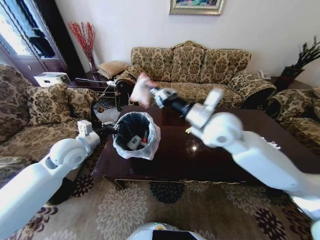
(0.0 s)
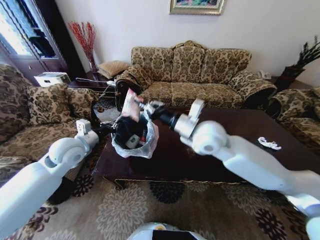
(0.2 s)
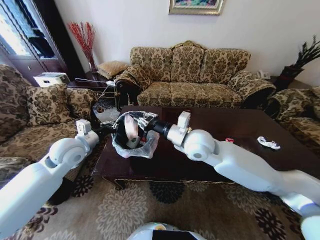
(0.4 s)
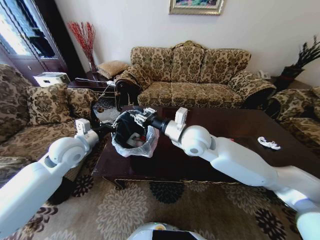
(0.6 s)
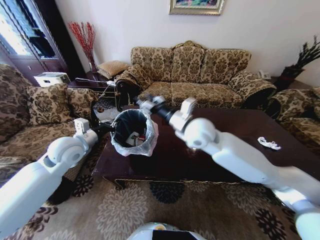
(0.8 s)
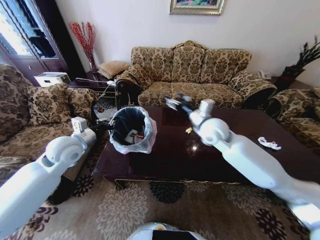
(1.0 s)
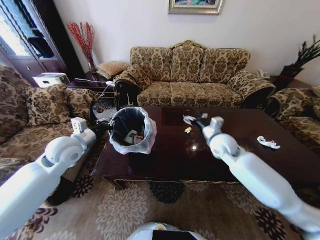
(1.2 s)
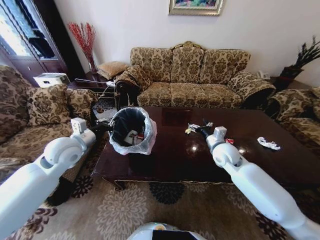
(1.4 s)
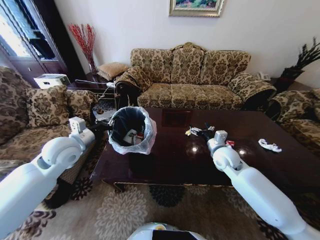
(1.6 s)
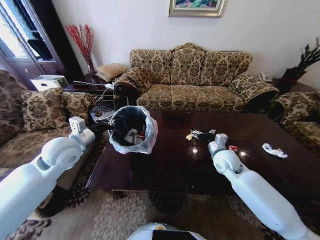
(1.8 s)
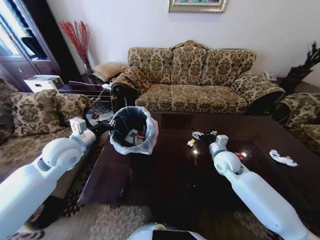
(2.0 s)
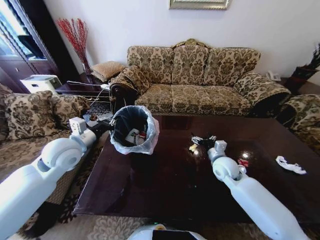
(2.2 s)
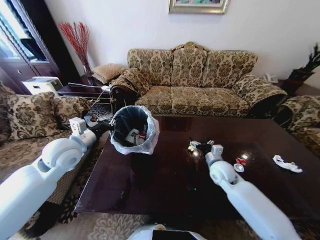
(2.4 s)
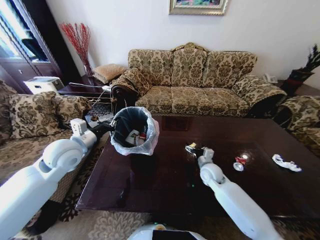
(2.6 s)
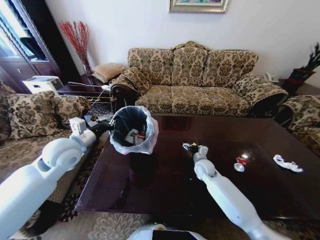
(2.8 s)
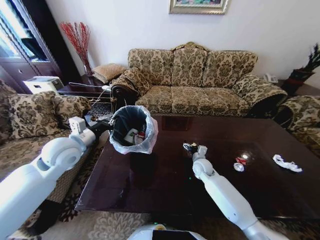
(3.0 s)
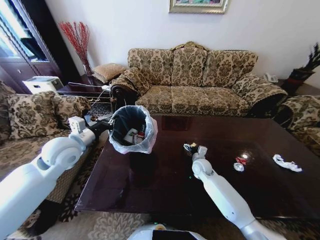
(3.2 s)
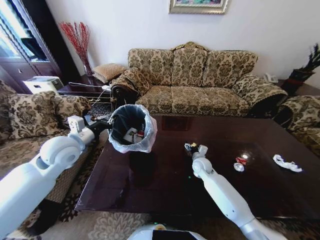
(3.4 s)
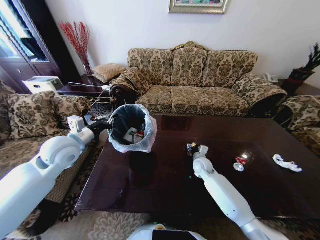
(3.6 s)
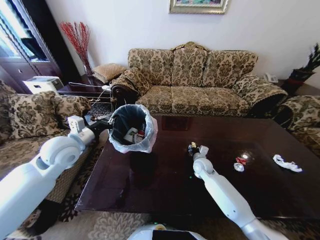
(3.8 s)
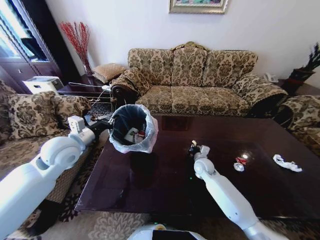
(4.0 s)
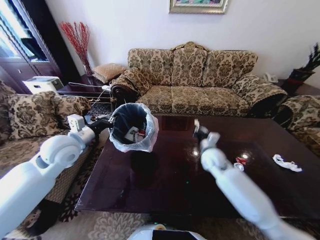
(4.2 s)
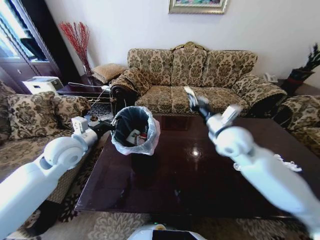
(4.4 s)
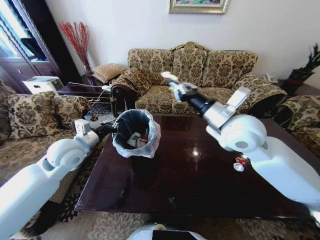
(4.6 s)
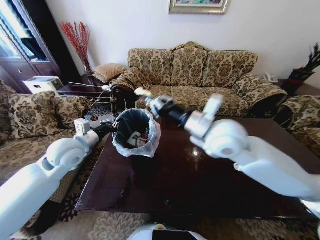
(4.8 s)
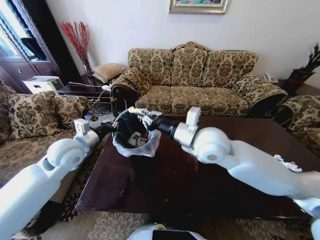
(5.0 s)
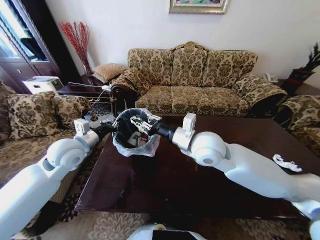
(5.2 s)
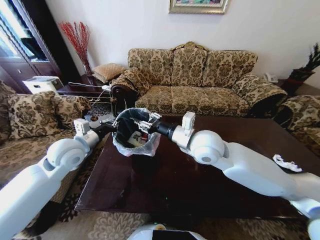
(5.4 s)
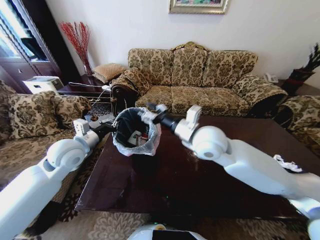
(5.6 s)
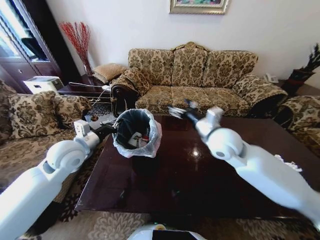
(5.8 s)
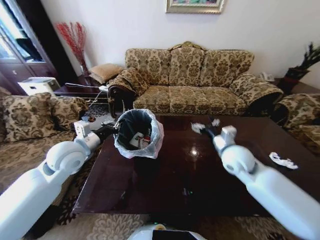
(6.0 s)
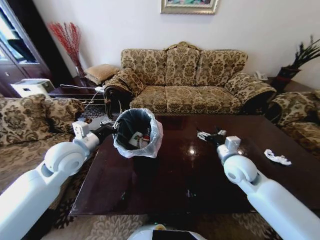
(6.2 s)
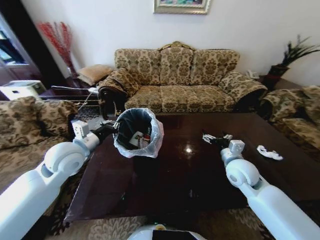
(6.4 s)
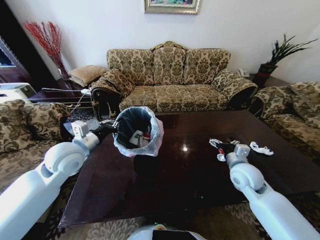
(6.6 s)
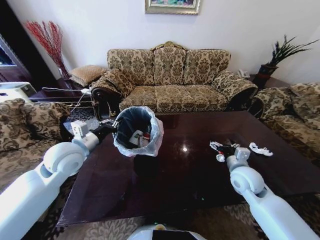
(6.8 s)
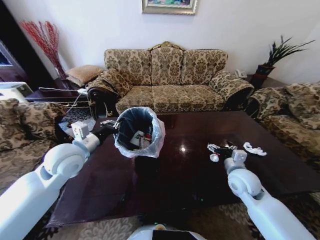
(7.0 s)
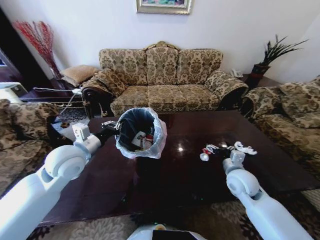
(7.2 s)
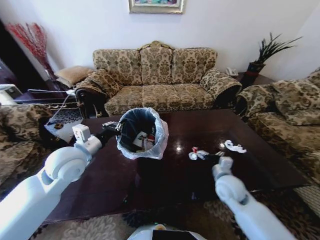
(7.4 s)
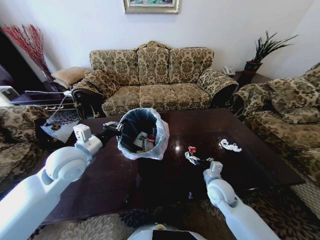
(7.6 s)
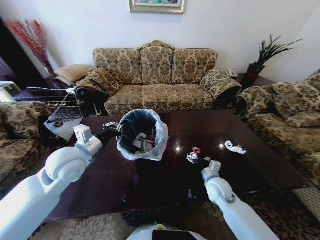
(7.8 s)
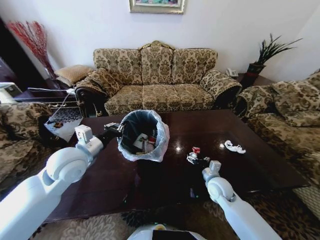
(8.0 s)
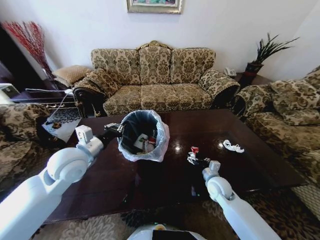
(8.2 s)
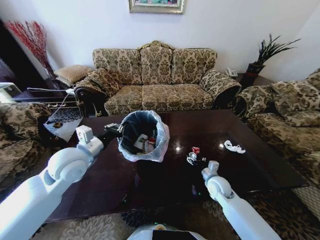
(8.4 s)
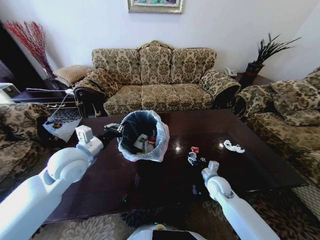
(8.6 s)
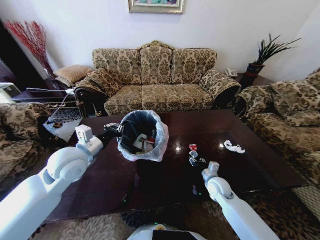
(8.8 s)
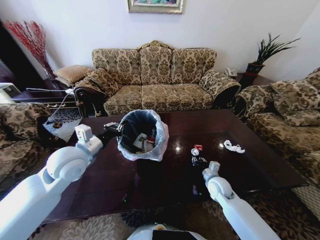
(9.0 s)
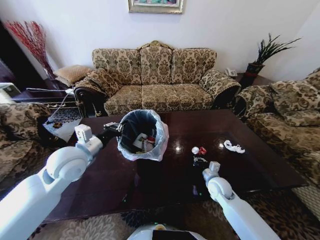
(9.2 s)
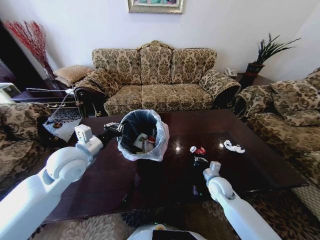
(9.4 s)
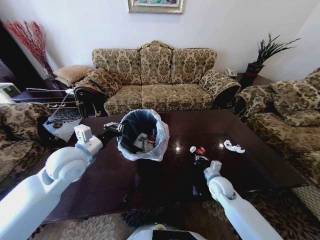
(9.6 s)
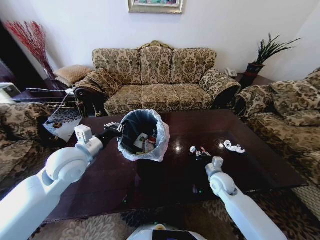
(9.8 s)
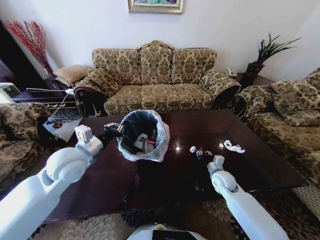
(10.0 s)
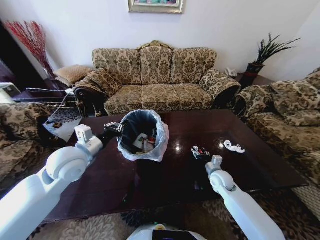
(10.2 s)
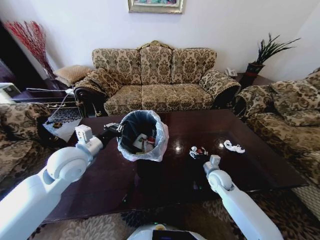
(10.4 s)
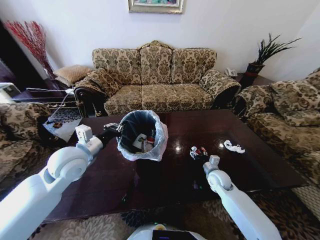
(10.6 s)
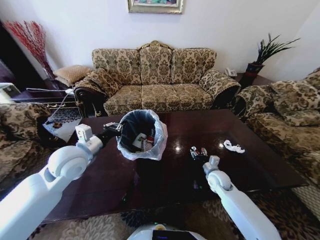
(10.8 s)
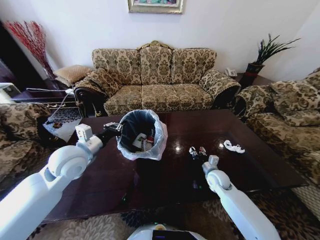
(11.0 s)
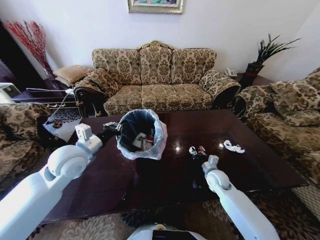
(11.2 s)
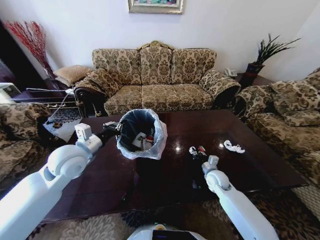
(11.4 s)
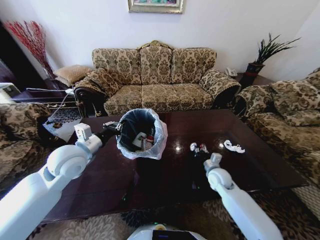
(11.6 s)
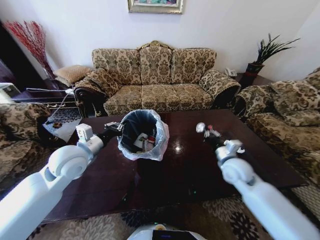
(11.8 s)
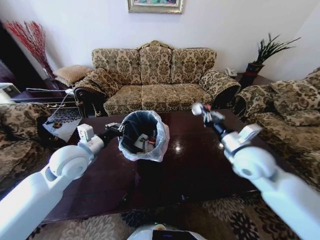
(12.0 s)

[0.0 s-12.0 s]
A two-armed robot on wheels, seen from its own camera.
Task of the whole recording: Move to the front of the table and place the trash on the table into the trash bin.
0.0 to 1.6 s: The right gripper shifts roughly 20 cm downward and to the right, and opens up.
1.6 to 3.0 s: The right gripper shifts some 15 cm downward and to the left.
3.0 to 4.4 s: The right gripper moves upward, approximately 25 cm, and closes.
4.4 to 6.0 s: The right gripper shifts roughly 5 cm downward, and opens.
6.0 to 7.6 s: The right gripper goes some 15 cm downward and backward.
7.6 to 9.0 s: The right gripper goes about 5 cm downward, and closes.
9.0 to 10.4 s: The right gripper opens.
10.4 to 12.0 s: The right gripper moves upward, some 25 cm, and closes its fingers.

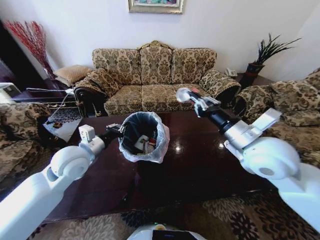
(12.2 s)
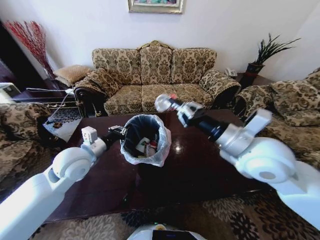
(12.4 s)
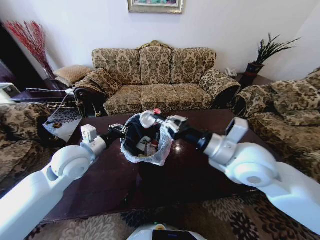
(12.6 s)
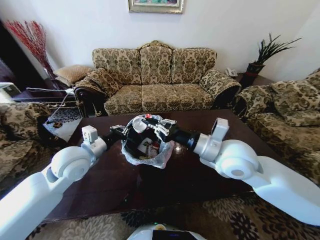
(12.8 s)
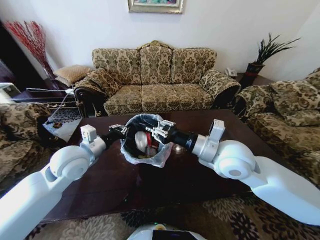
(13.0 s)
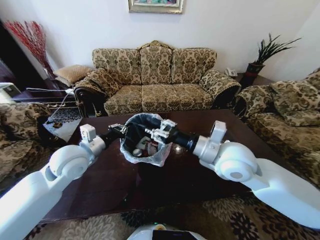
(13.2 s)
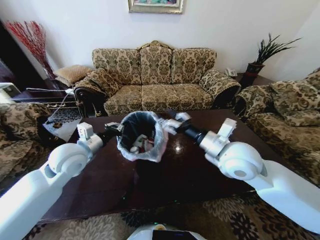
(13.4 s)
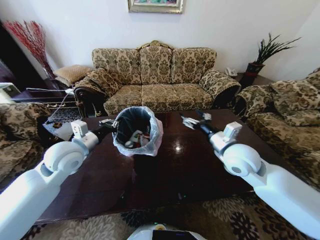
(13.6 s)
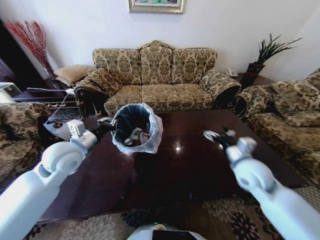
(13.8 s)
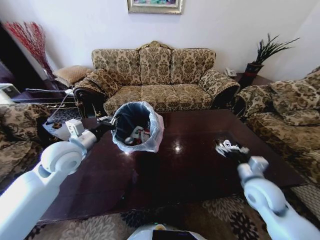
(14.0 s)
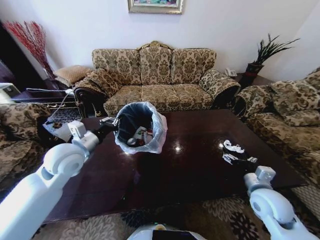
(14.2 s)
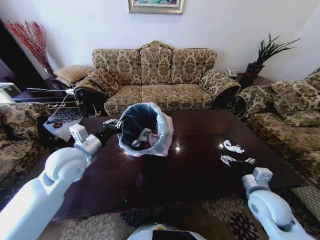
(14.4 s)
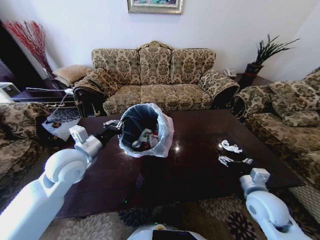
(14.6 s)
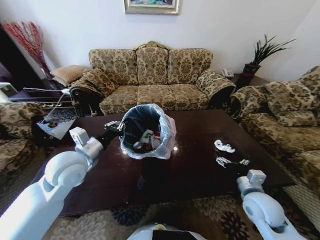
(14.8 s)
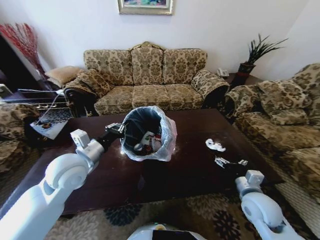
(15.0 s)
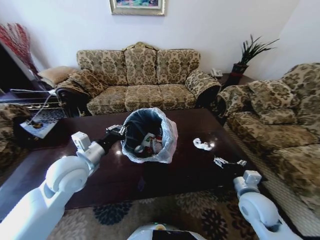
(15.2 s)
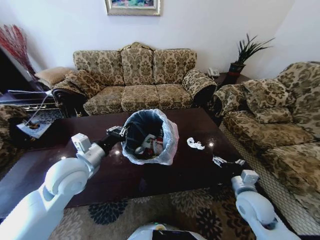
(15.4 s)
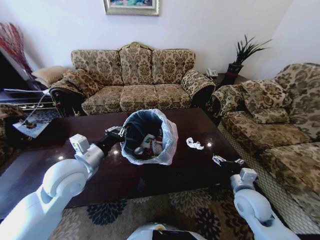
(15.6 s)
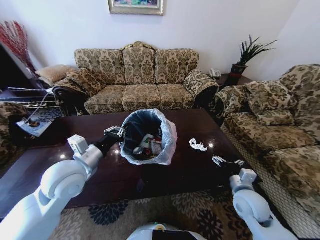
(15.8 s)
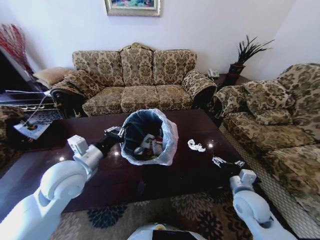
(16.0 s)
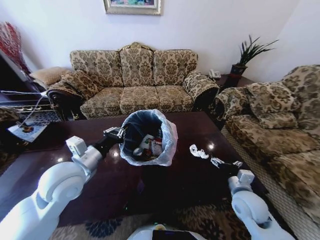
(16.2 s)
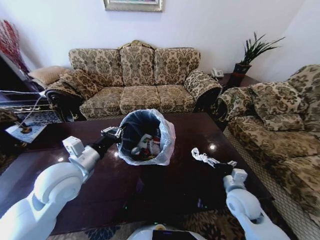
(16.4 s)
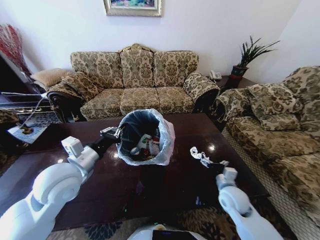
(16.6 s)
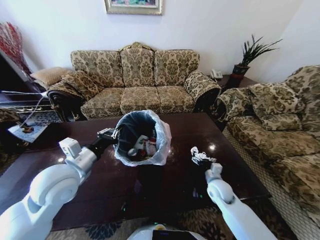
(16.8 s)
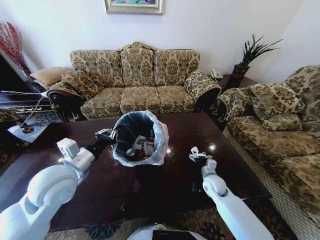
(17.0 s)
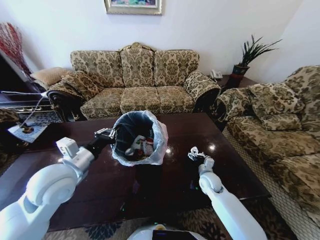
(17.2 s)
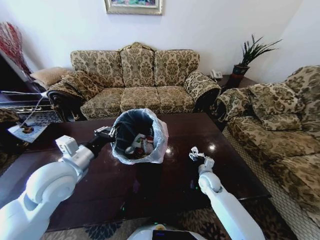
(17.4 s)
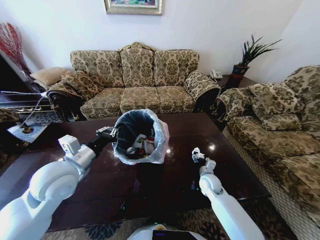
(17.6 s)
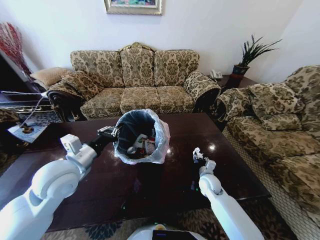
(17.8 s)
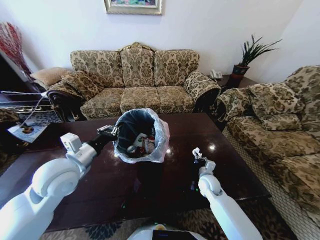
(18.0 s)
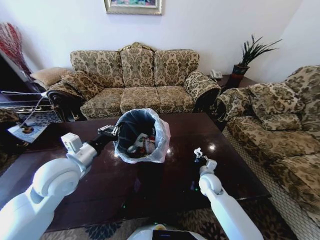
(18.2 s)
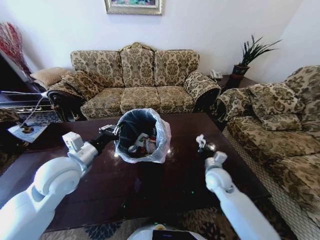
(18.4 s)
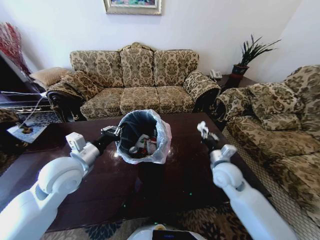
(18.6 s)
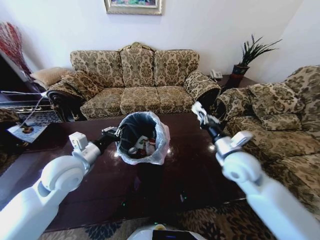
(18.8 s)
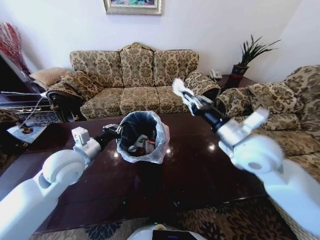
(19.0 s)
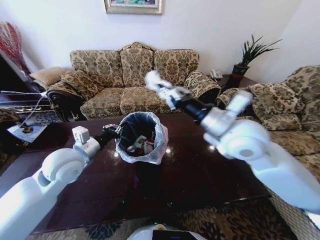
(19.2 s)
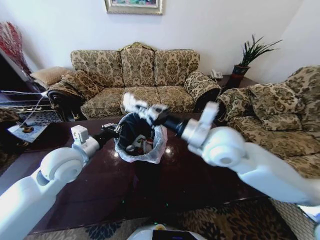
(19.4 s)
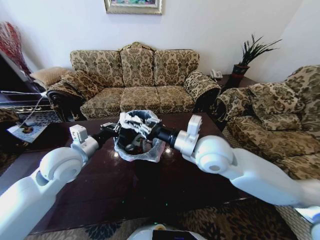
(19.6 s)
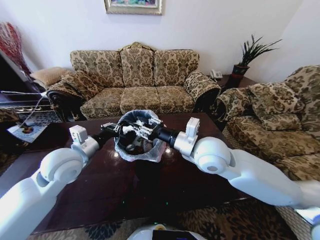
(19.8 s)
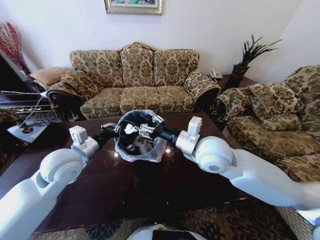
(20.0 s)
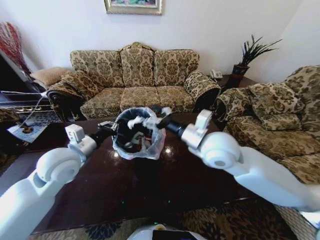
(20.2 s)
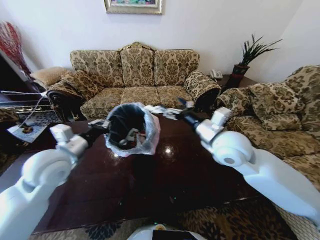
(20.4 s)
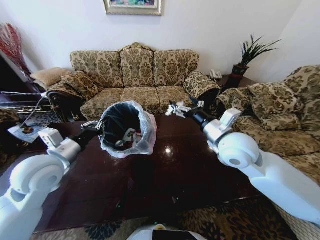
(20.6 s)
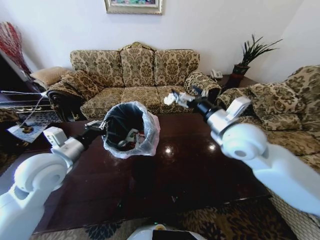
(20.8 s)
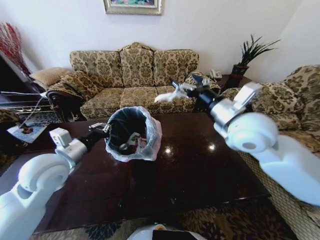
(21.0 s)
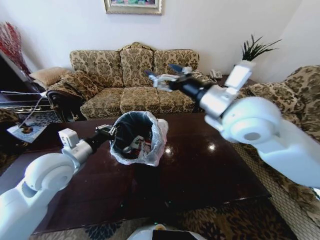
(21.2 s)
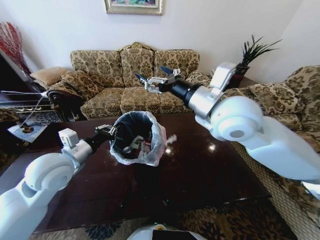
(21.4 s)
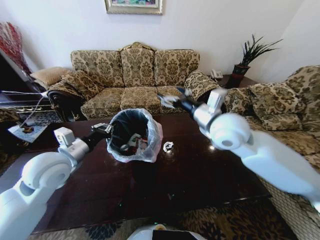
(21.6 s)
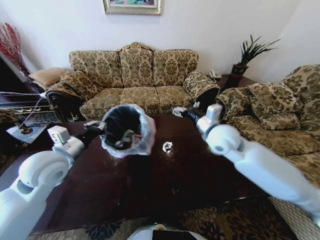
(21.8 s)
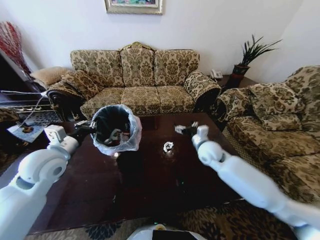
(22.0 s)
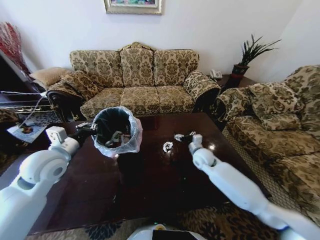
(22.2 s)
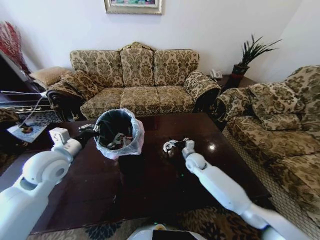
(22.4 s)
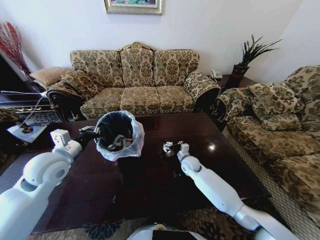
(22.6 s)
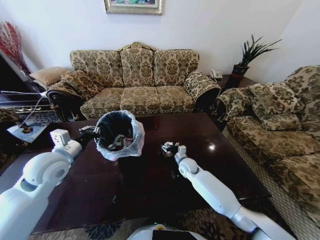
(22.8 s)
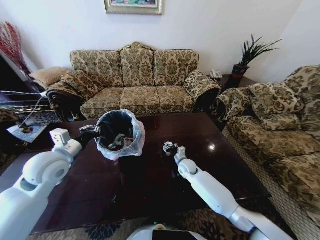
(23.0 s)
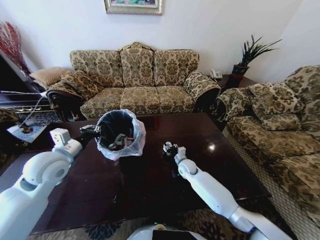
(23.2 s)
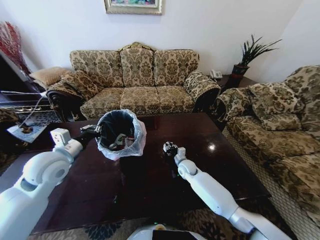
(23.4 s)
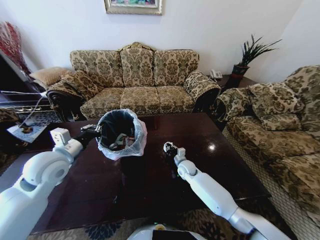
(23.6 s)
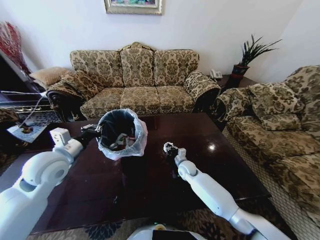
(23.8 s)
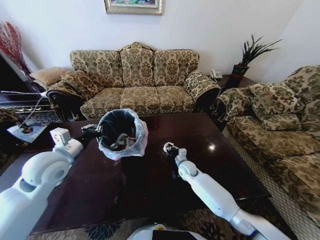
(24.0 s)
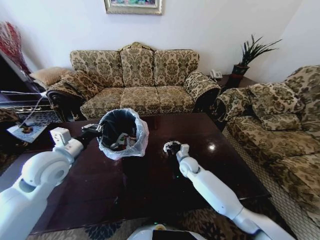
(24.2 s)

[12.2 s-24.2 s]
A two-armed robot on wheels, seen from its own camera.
Task of the whole recording: Move to the front of the table and place the trash on the table into the trash bin.
12.2 to 13.8 s: The right gripper goes about 15 cm downward, and opens up.
13.8 to 15.2 s: The left gripper changes place by approximately 5 cm. Meanwhile the right gripper goes about 10 cm downward and backward.
15.2 to 16.6 s: The right gripper shifts roughly 5 cm downward.
16.6 to 18.2 s: The right gripper shifts approximately 10 cm forward and downward, and closes.
18.2 to 19.8 s: The right gripper is displaced upward by about 30 cm.
19.8 to 21.2 s: The right gripper shifts approximately 15 cm upward and to the right, and opens.
21.2 to 22.6 s: The left gripper moves about 5 cm; the right gripper heads downward, covering roughly 40 cm.
22.6 to 24.2 s: The right gripper closes its fingers.
